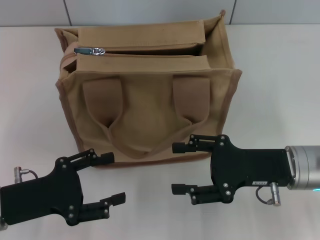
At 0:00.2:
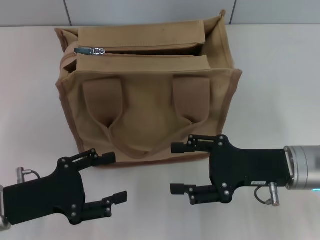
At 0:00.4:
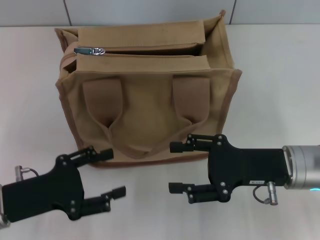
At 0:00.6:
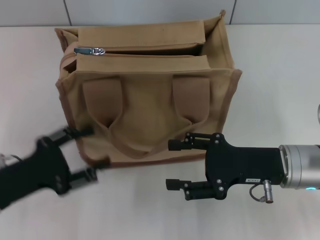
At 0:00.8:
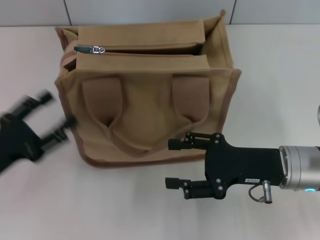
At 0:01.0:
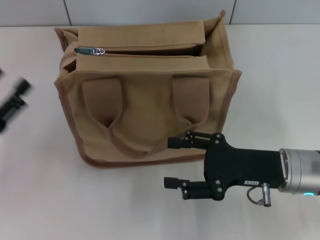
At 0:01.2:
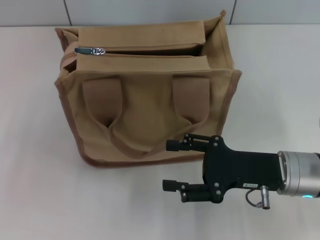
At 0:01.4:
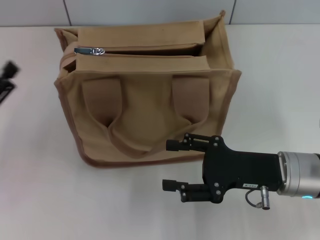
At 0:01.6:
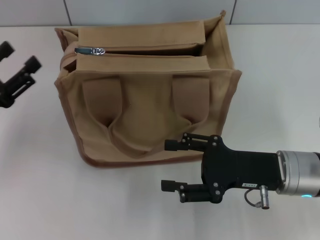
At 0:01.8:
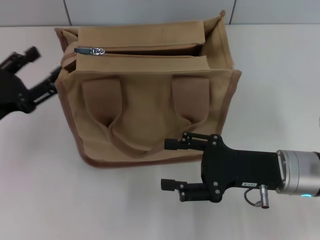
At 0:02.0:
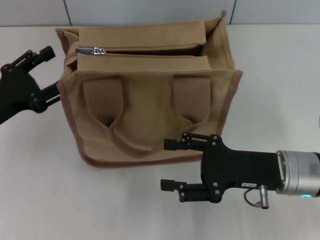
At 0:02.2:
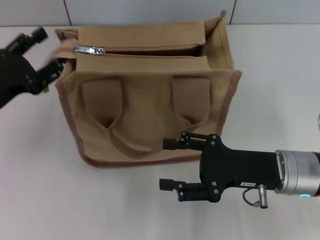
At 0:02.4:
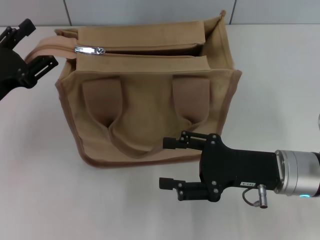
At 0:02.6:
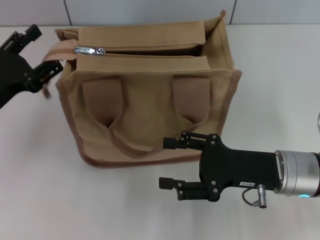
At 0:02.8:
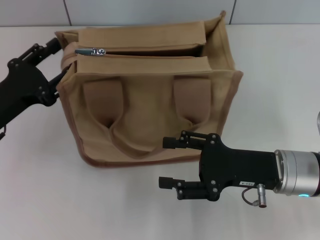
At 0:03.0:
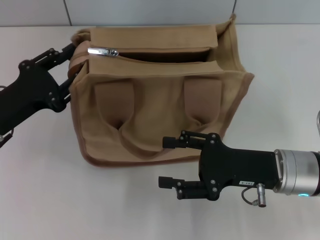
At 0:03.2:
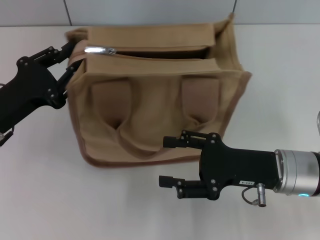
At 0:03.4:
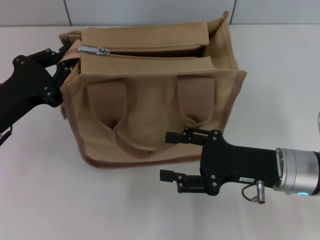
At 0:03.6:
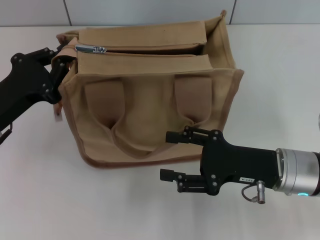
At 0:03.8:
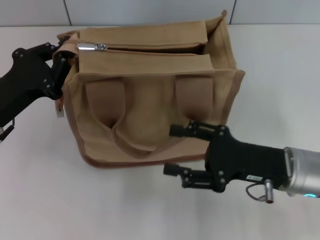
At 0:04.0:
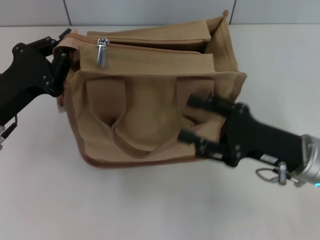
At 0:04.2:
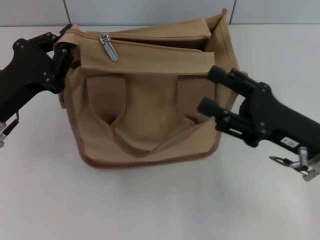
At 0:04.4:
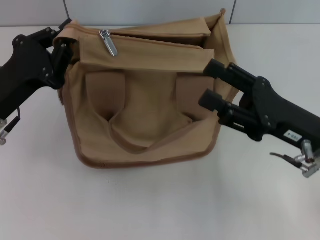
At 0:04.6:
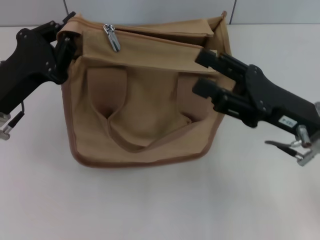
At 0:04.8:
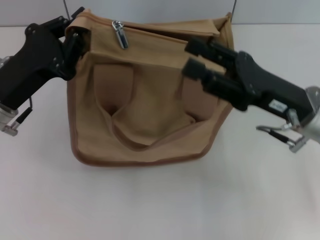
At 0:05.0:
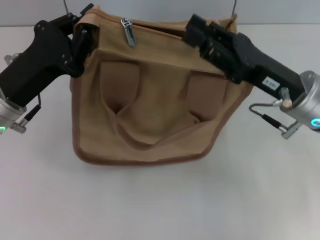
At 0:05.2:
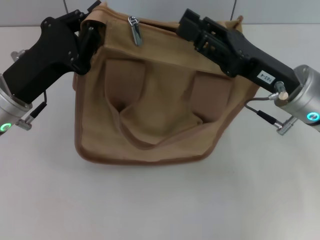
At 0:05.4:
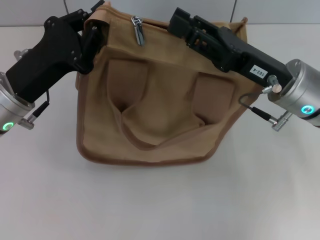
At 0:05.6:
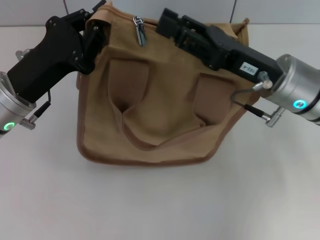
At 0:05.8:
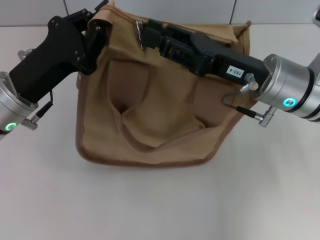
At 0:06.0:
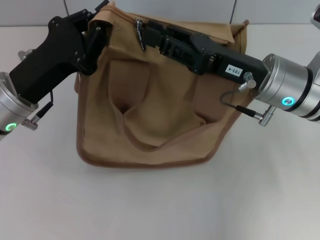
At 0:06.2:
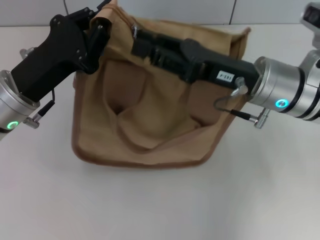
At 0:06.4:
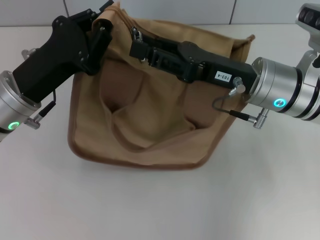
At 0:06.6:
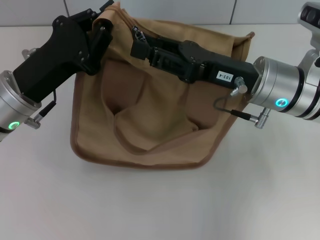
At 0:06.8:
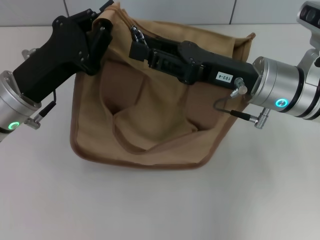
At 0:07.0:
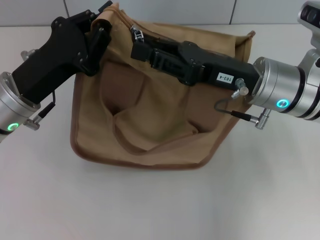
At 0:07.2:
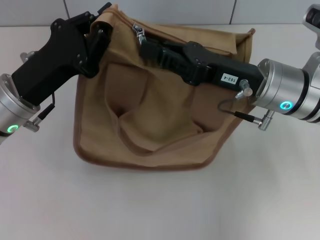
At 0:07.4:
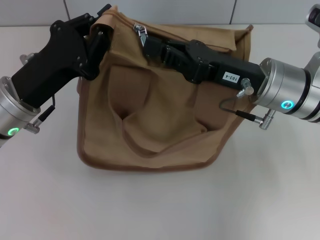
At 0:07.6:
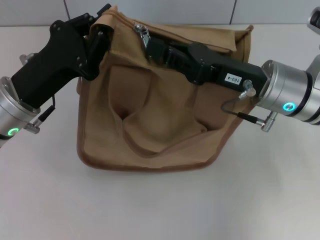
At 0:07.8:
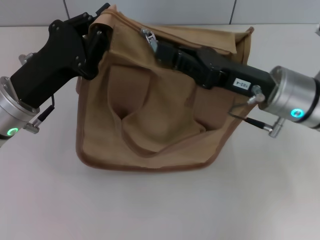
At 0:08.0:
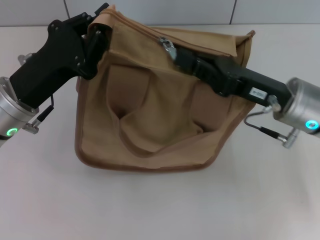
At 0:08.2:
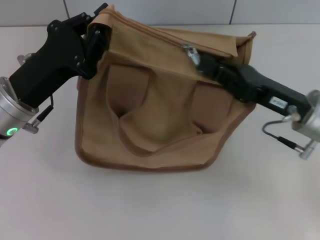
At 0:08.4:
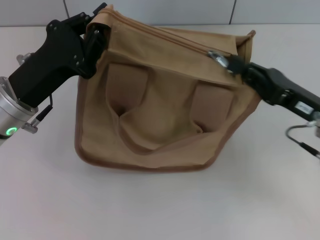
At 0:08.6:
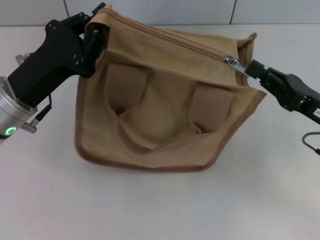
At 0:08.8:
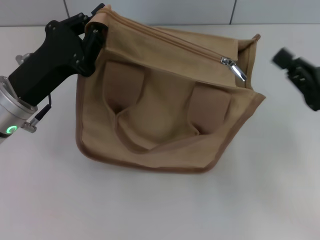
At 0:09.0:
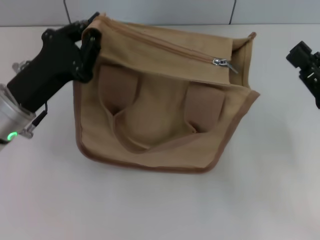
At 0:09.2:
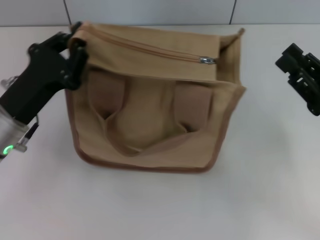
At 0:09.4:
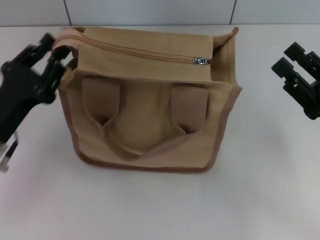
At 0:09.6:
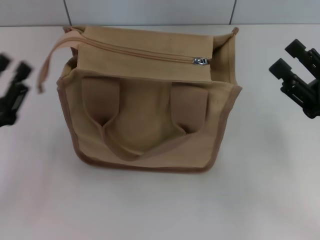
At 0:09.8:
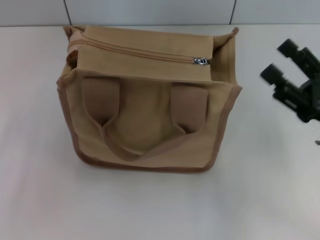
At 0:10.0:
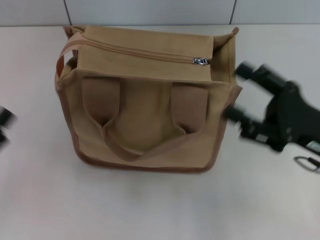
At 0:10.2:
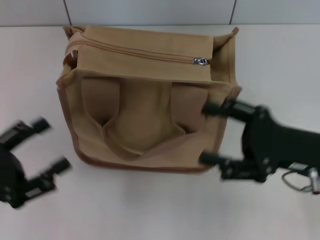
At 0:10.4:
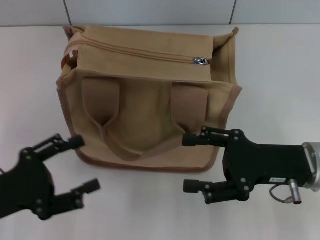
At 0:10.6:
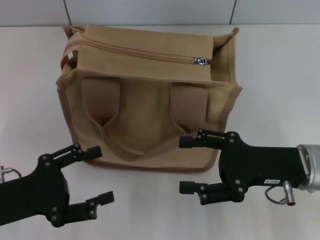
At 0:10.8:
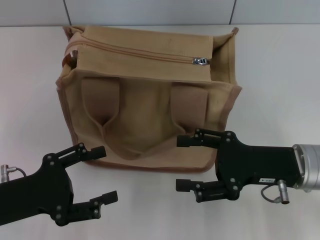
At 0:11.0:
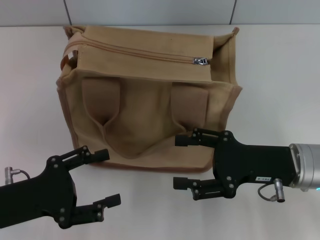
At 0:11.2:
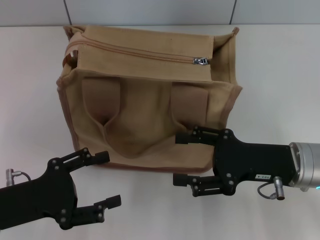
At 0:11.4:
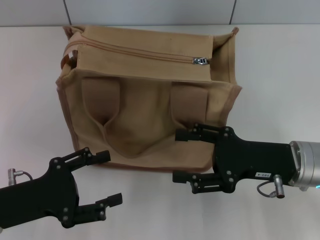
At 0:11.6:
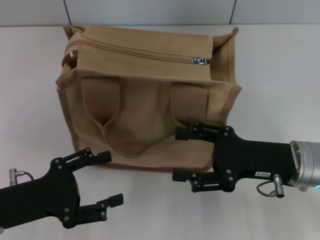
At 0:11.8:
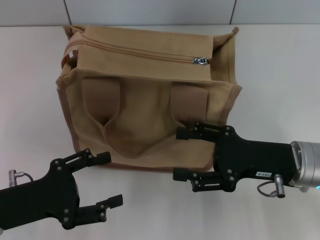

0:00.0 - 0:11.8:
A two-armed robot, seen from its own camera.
Step, 0:00.0 - 0:08.6: Pull up the zipper with your right hand.
Step, 0:08.8 - 0:09.4: Grab the zipper with your left hand.
0:00.0 - 0:01.4: The left gripper travels to the left by approximately 5 cm.
0:01.4 - 0:03.0: The left gripper goes roughly 5 cm to the right.
0:03.0 - 0:04.4: The left gripper closes up.
0:04.4 - 0:06.0: The right gripper shifts about 10 cm forward and to the left.
0:06.0 - 0:07.4: The right gripper closes.
0:07.4 - 0:08.8: The right gripper travels to the right and backward by some 15 cm.
0:08.8 - 0:10.4: The right gripper travels to the left by about 5 cm, and opens its fingers. Meanwhile the left gripper shifts roughly 15 cm backward and to the left, and opens.
0:10.4 - 0:11.8: The grippers move only a little.

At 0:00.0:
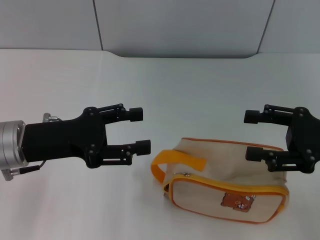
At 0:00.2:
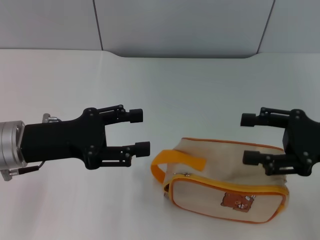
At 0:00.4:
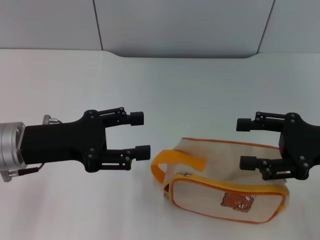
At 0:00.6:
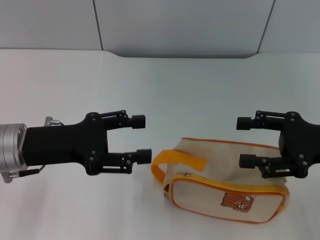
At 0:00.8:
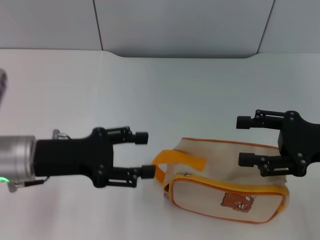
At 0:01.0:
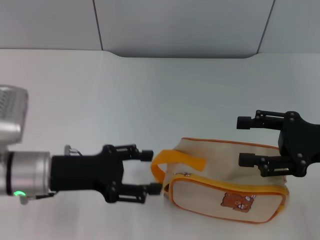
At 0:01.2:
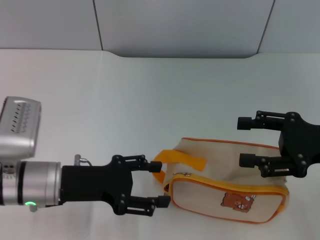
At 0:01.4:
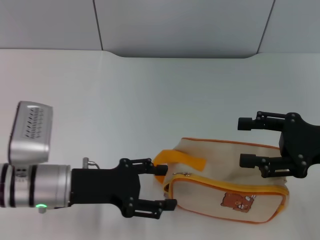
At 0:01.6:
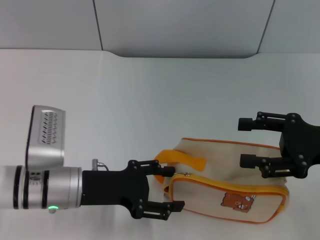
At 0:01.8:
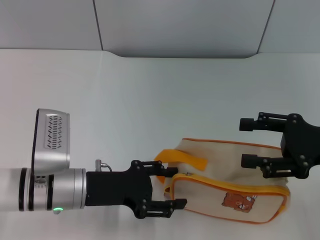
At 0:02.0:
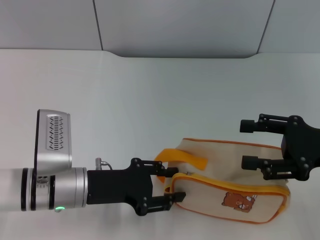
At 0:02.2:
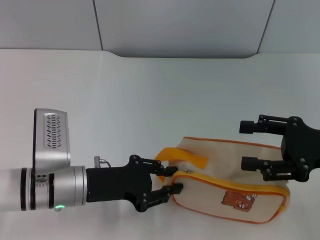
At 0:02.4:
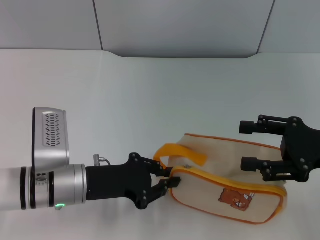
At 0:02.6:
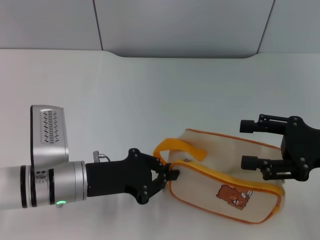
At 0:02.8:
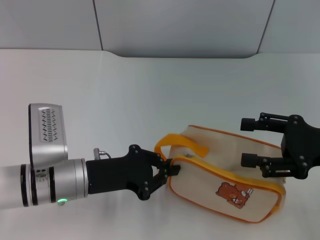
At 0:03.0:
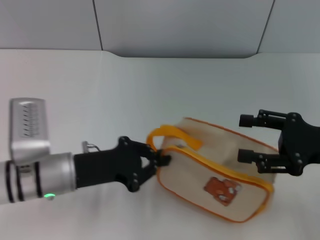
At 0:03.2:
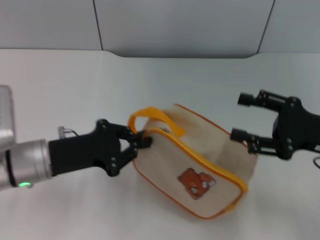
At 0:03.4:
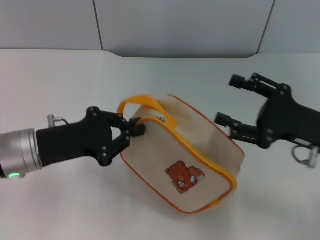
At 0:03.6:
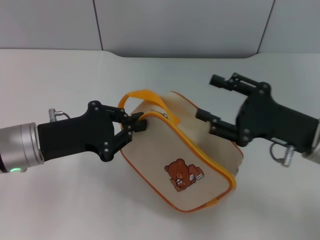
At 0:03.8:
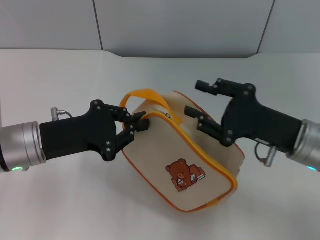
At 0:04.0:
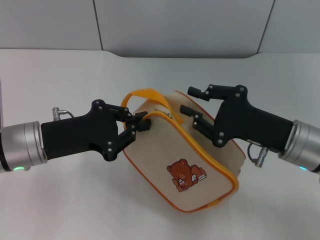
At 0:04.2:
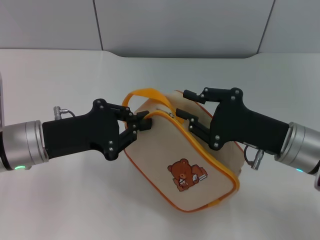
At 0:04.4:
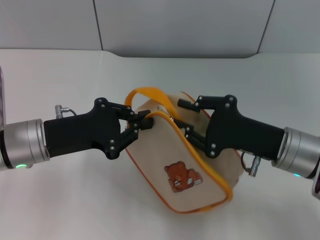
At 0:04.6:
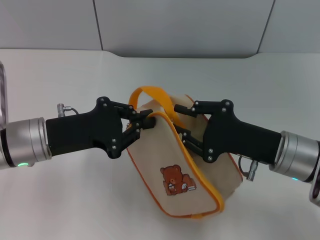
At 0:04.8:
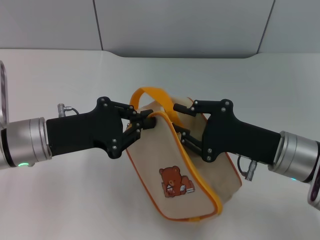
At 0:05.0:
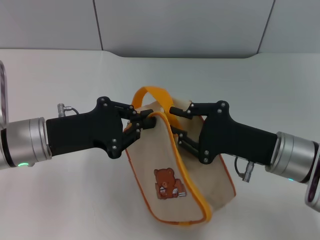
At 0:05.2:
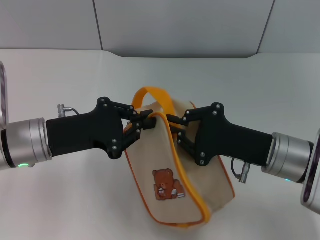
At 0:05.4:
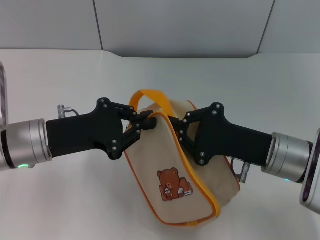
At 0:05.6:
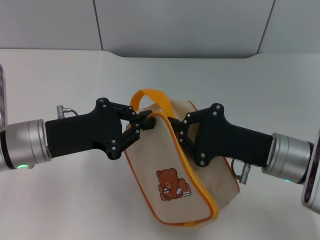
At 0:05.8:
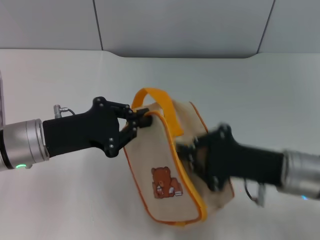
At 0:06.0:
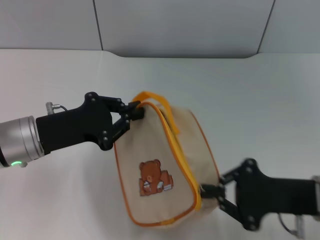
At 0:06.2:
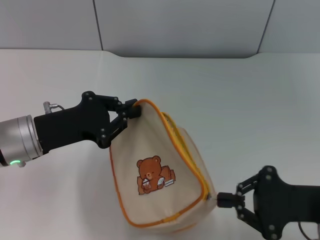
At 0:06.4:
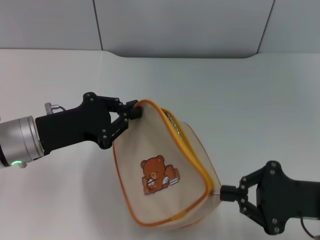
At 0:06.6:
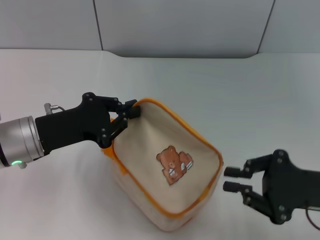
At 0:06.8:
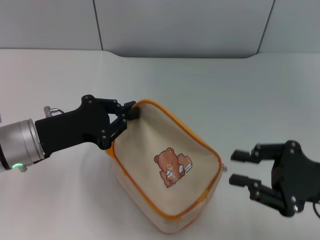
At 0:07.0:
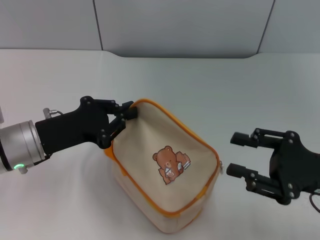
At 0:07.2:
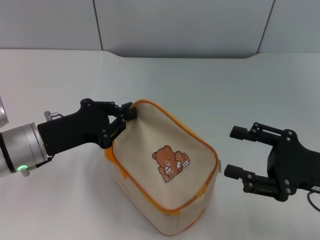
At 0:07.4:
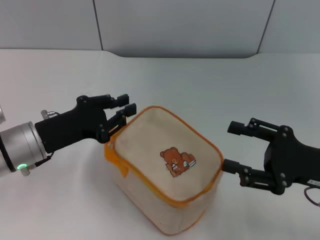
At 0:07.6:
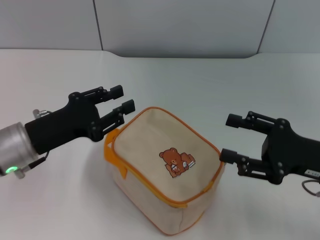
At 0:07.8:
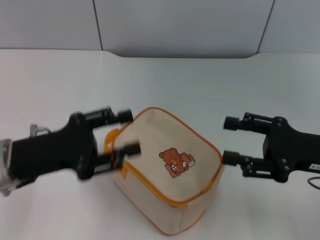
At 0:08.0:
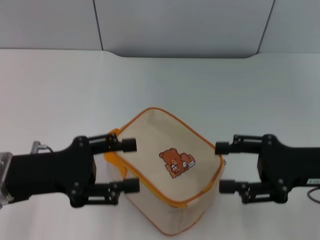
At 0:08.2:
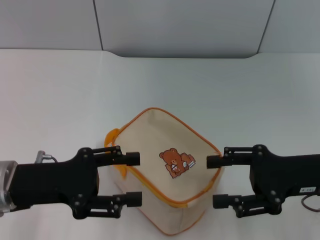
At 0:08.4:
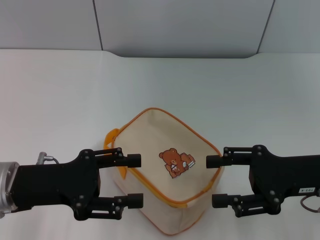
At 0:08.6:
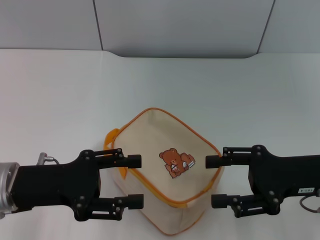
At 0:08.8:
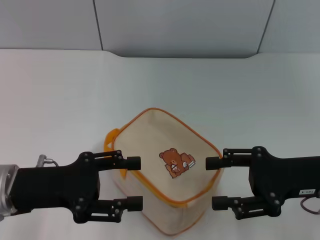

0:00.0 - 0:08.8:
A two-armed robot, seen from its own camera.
Step, 0:00.0 - 0:03.4: Pick up the bag with left gripper.
Step, 0:03.8 - 0:06.6: Unzip the zipper of bag with right gripper.
Step, 0:06.8 - 0:07.6: Place the bag on the table with left gripper.
0:00.0 - 0:01.4: The left gripper heads downward, covering roughly 5 cm.
0:01.4 - 0:03.0: The left gripper closes.
0:03.0 - 0:04.4: The left gripper shifts by about 5 cm, while the right gripper goes roughly 10 cm to the left, and closes.
0:04.4 - 0:05.8: The right gripper closes up.
0:05.8 - 0:07.4: The right gripper heads to the right, covering about 5 cm, and opens.
0:07.4 - 0:08.8: The left gripper goes approximately 5 cm backward, and opens.
